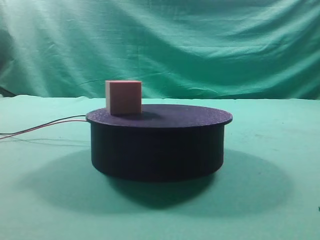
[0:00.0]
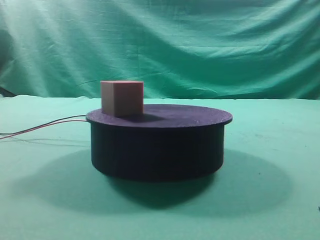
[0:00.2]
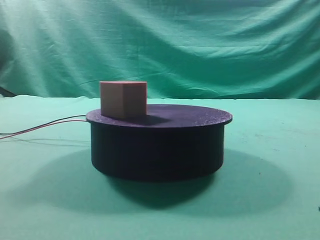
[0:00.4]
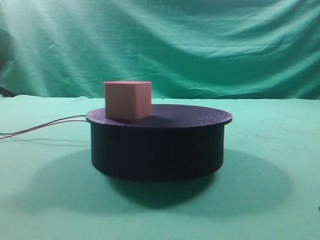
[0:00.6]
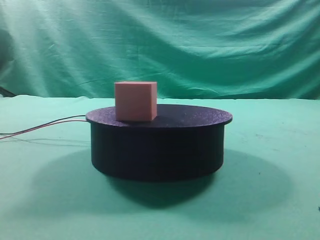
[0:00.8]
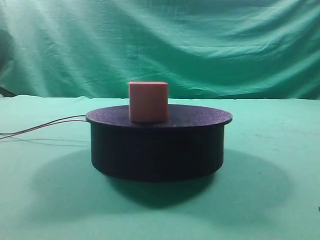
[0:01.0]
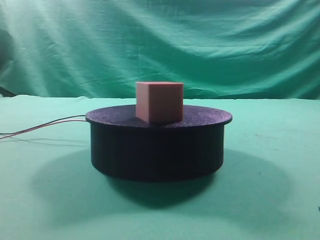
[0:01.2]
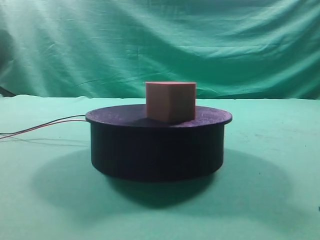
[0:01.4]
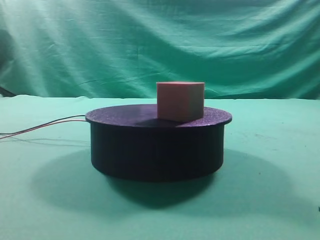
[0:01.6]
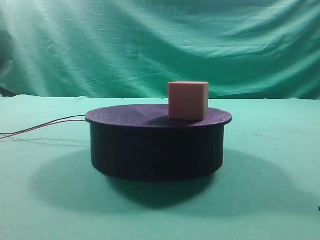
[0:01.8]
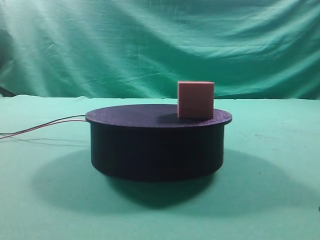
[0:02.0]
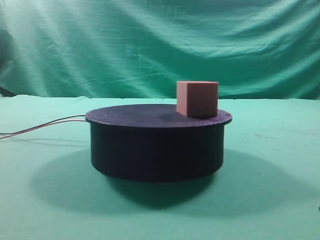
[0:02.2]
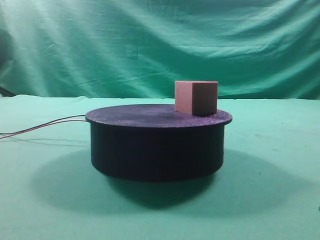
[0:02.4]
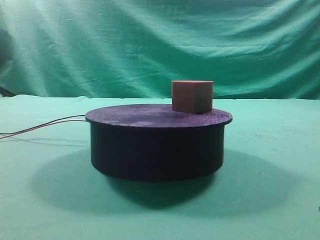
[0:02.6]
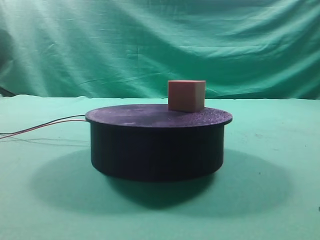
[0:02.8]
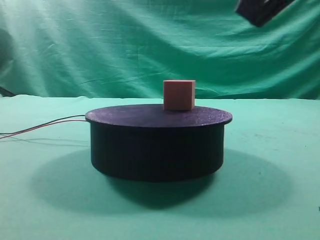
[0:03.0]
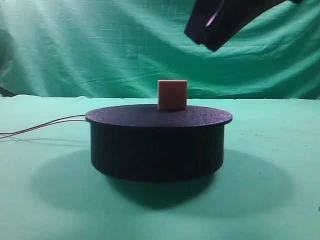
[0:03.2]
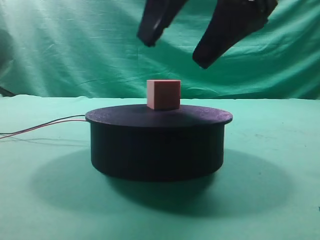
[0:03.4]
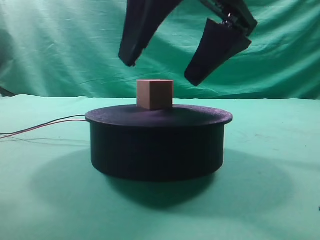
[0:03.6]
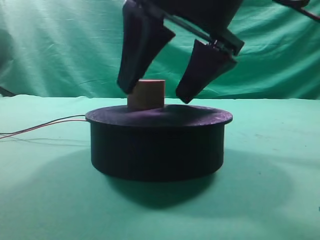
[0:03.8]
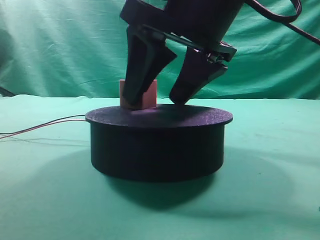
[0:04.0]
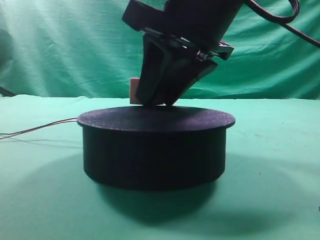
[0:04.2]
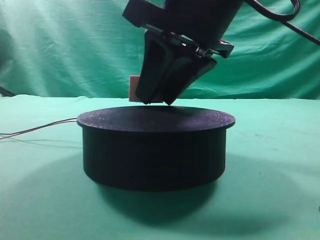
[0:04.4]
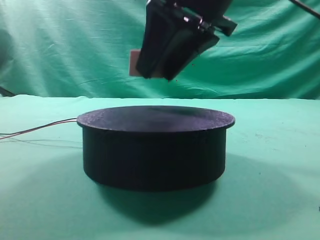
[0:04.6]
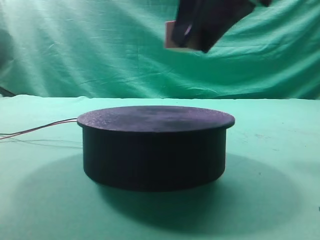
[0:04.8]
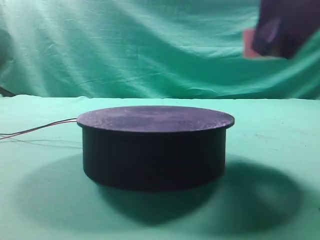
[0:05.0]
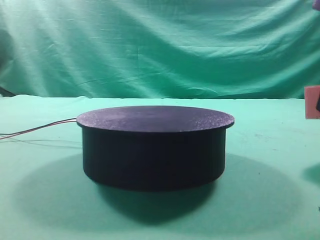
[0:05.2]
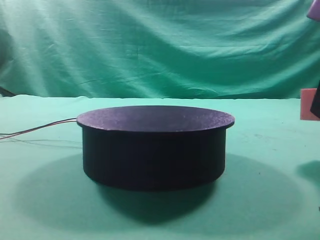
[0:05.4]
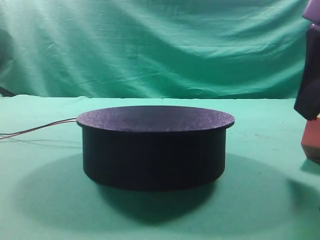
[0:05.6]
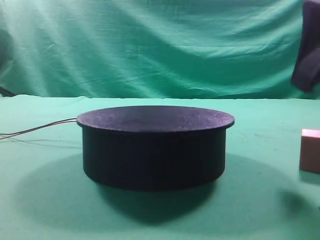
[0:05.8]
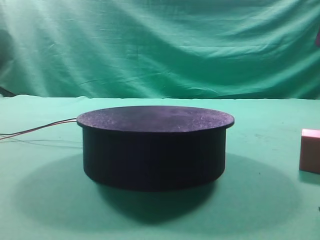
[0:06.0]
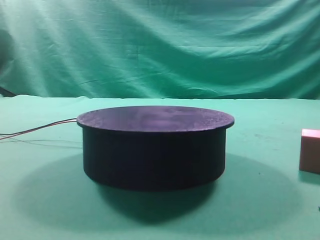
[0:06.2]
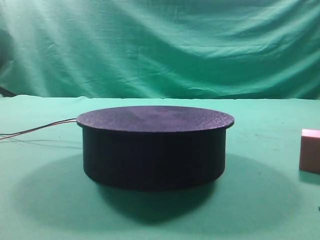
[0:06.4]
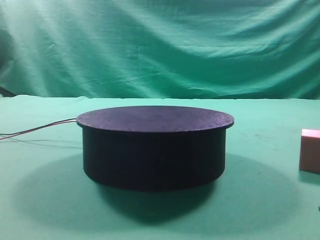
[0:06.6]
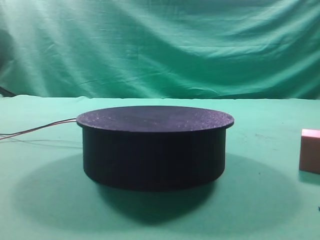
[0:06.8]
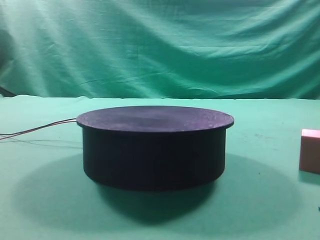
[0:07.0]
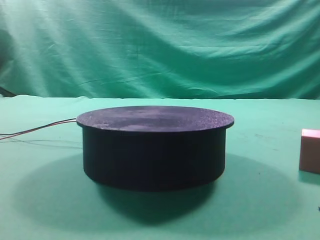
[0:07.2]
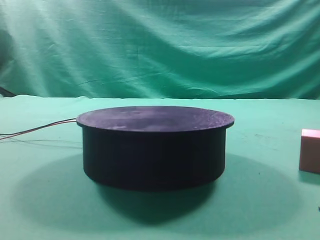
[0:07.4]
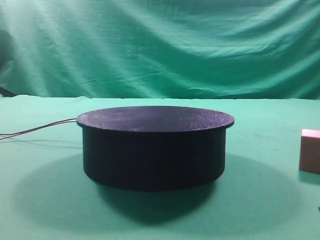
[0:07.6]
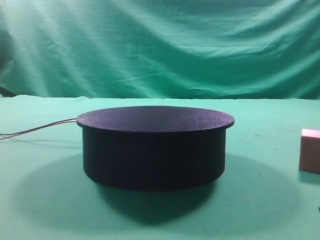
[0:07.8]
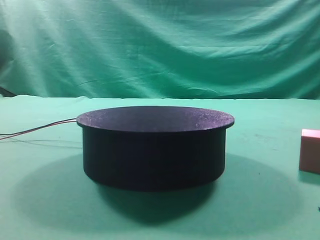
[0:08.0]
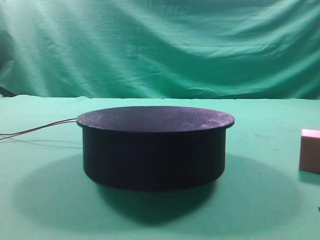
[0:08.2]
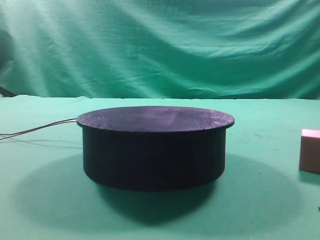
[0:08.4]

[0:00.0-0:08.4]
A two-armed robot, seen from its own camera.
Task of the whole recording: grasp the rotating cube-shaped block on the turntable and place it on the table.
Step, 0:00.0 to 0:04.4: Grasp the rotating cube-shaped block on the turntable.
Step, 0:04.6 to 0:05.6: Place the cube on the desk.

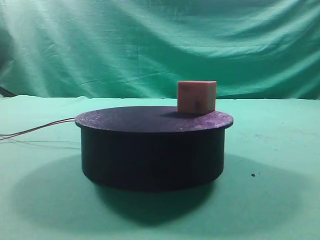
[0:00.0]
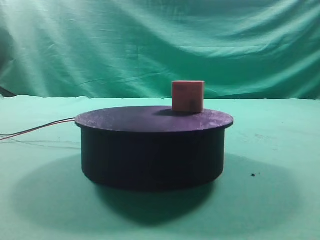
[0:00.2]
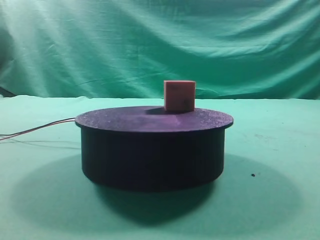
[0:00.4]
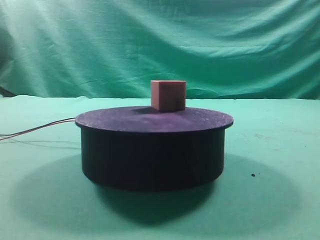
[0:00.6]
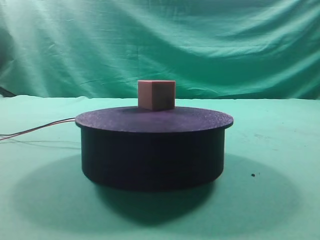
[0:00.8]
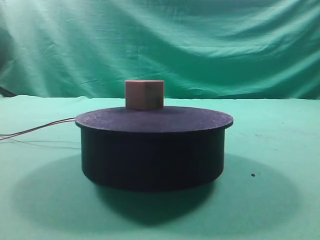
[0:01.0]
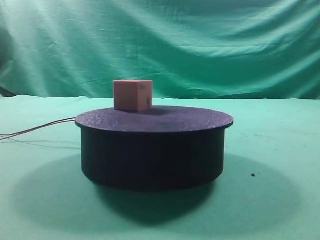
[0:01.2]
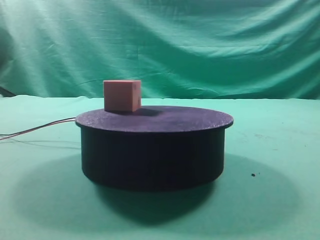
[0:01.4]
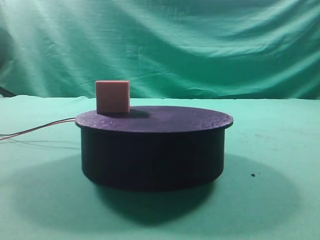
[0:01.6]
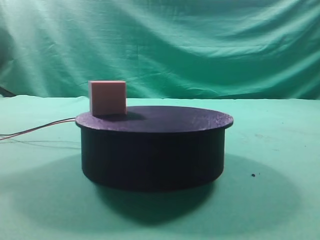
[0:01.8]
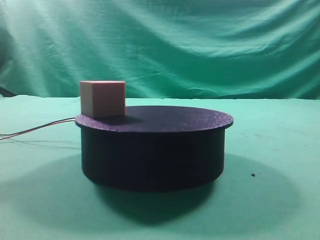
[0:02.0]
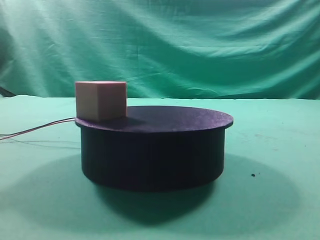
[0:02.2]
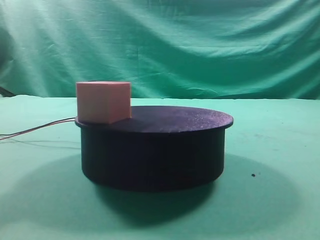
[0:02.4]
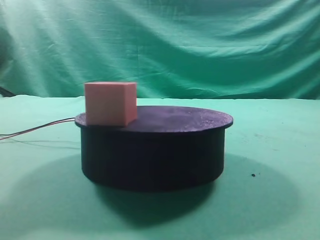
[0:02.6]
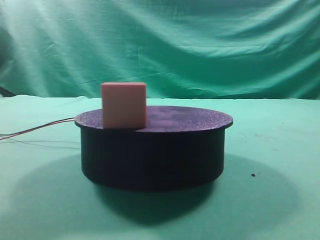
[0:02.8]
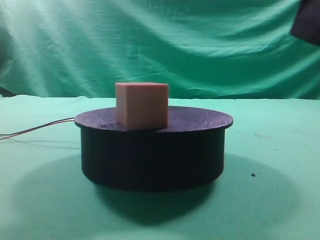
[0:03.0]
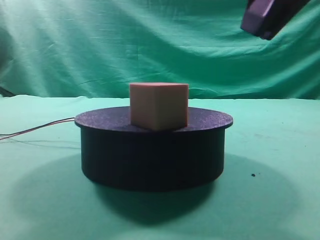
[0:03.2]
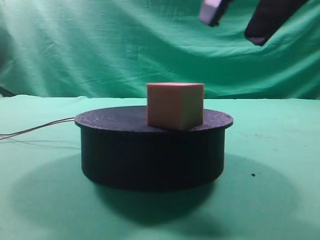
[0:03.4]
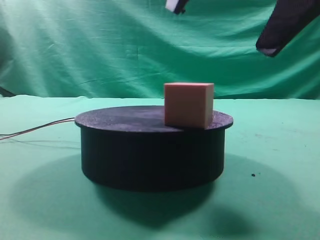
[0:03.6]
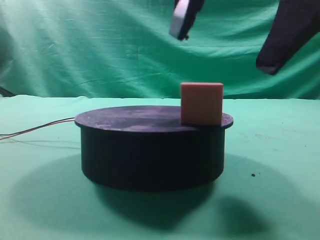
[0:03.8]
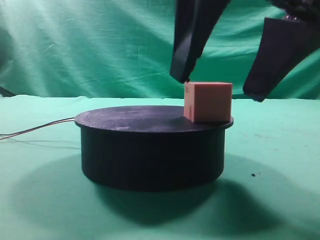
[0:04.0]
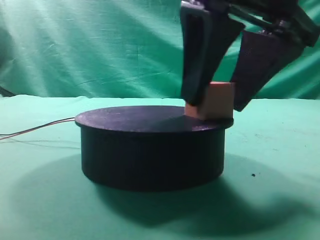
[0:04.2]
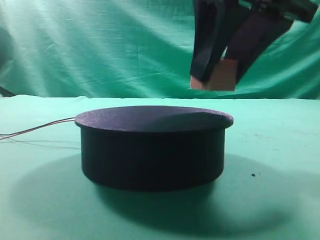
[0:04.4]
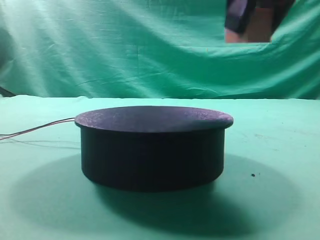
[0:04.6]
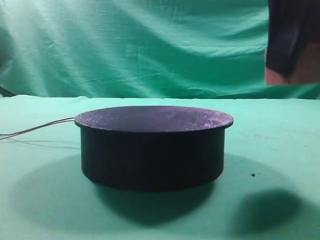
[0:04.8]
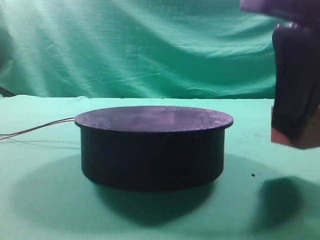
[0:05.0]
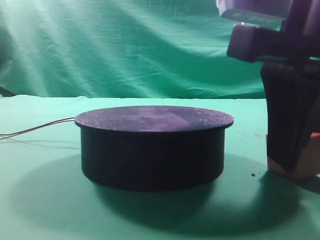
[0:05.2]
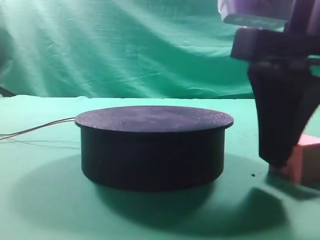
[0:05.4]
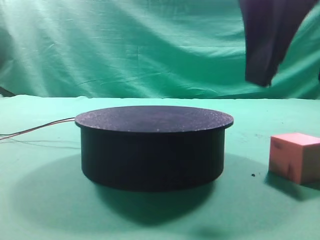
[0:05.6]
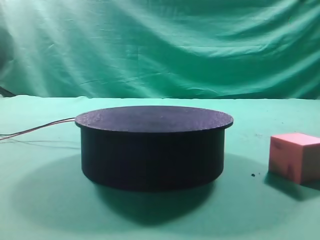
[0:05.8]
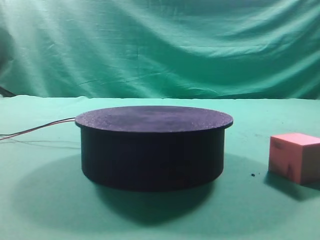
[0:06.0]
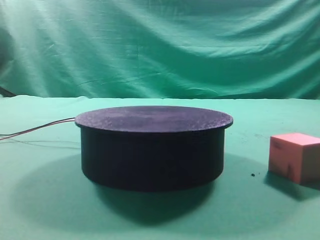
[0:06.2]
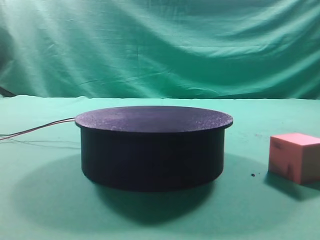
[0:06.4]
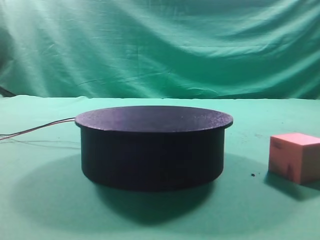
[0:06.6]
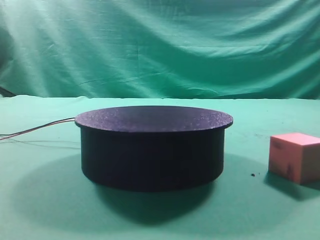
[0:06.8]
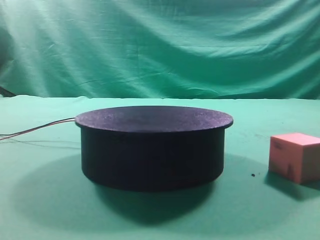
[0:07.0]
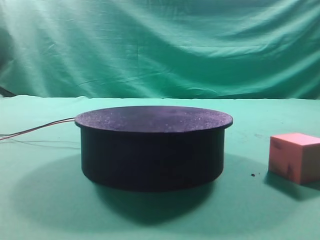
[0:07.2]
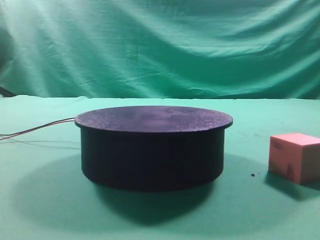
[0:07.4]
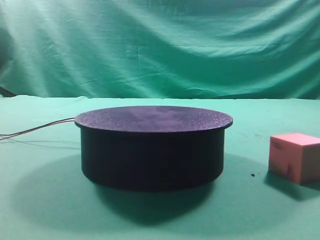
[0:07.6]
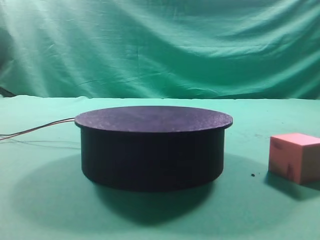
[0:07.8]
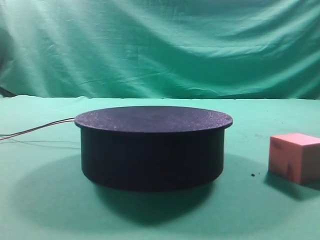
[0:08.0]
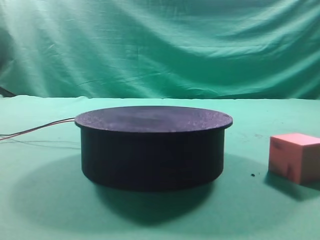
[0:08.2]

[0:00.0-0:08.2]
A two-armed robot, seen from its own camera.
Task of the whole recording: grasp the rotating cube-shaped block on the turntable and place it on the table.
Step, 0:00.0 to 0:04.4: Grasp the rotating cube-shaped block on the turntable.
Step, 0:04.6 to 0:05.4: Place the cube on the desk.

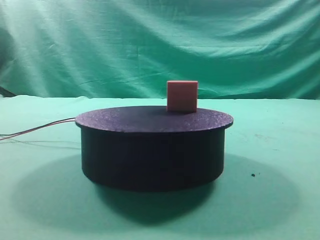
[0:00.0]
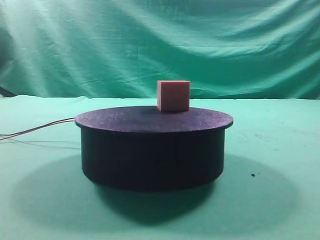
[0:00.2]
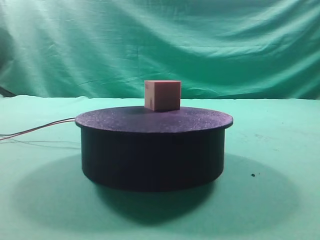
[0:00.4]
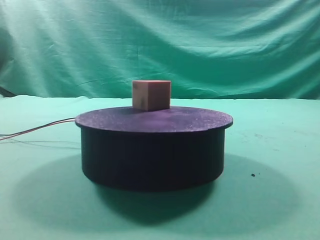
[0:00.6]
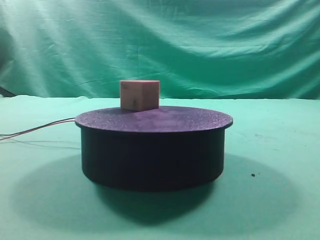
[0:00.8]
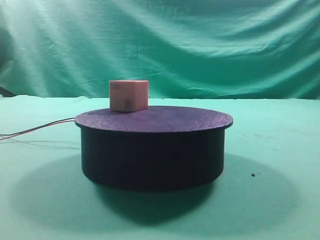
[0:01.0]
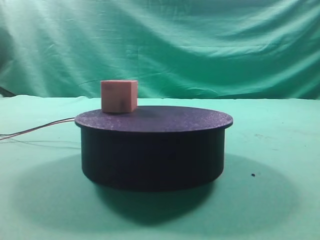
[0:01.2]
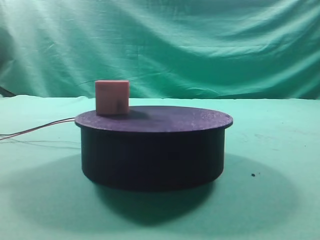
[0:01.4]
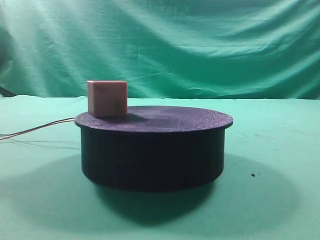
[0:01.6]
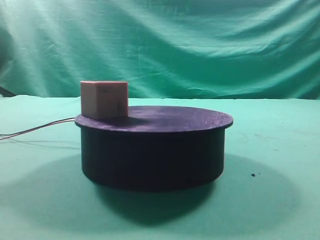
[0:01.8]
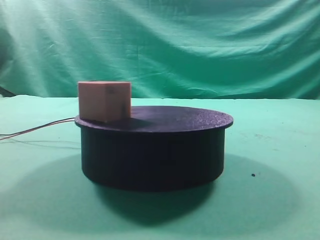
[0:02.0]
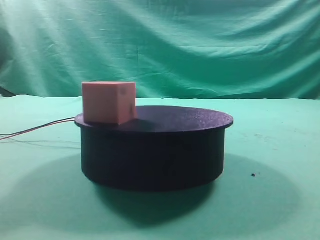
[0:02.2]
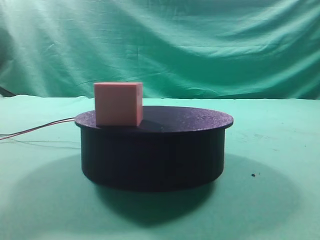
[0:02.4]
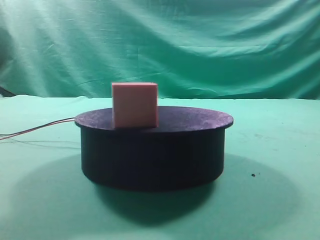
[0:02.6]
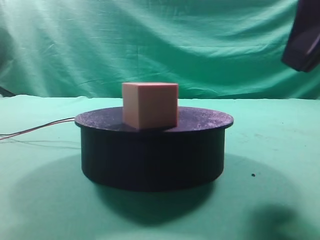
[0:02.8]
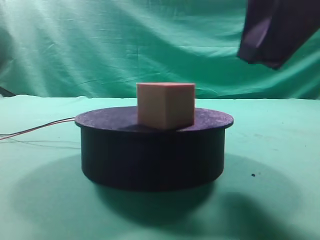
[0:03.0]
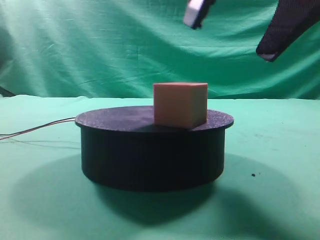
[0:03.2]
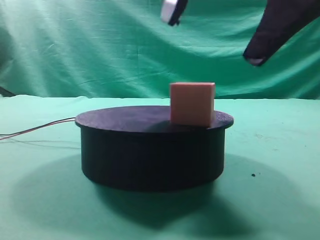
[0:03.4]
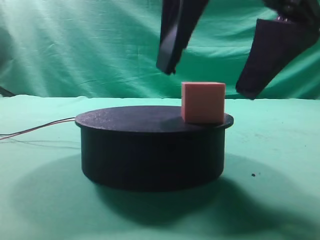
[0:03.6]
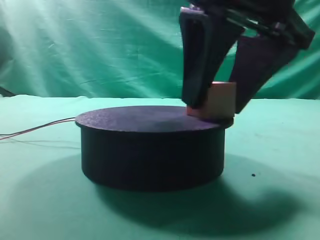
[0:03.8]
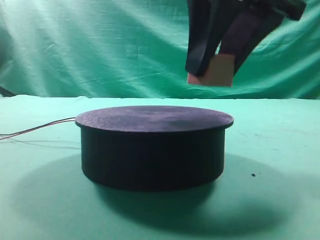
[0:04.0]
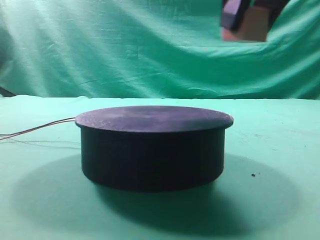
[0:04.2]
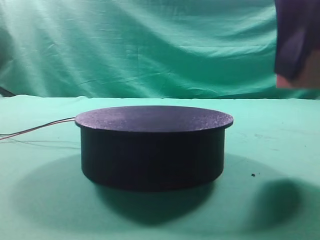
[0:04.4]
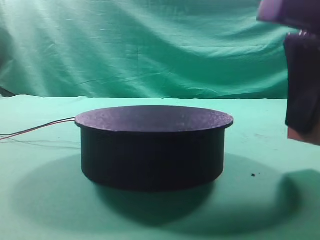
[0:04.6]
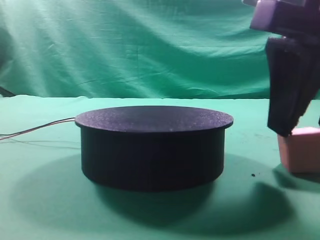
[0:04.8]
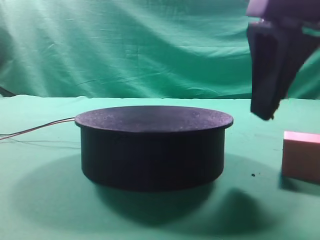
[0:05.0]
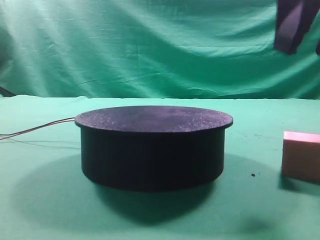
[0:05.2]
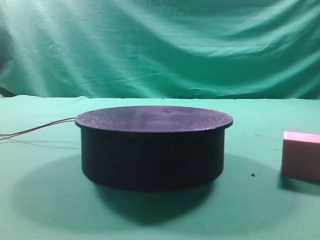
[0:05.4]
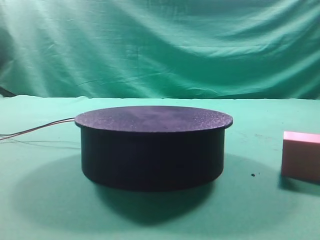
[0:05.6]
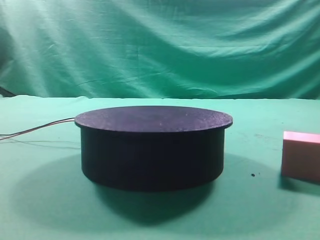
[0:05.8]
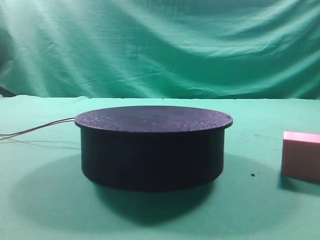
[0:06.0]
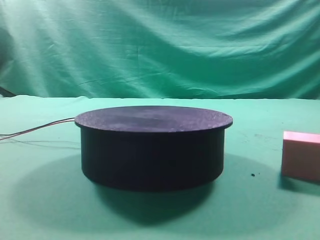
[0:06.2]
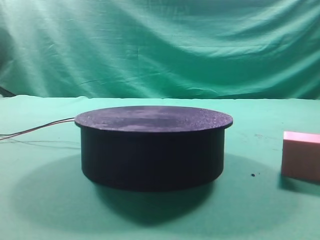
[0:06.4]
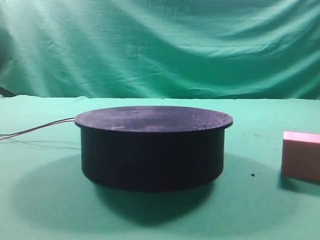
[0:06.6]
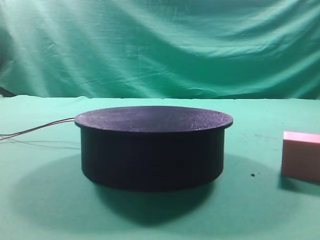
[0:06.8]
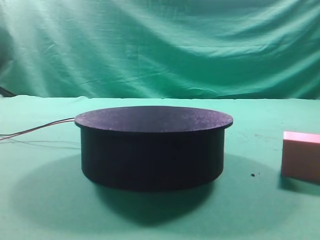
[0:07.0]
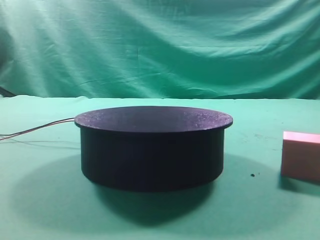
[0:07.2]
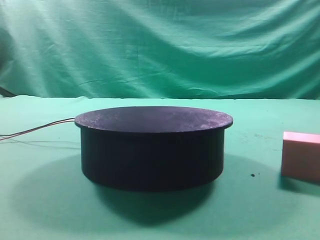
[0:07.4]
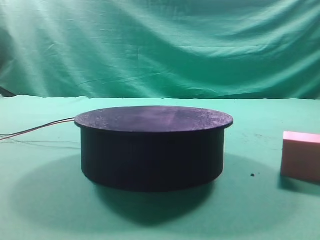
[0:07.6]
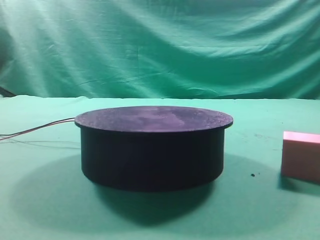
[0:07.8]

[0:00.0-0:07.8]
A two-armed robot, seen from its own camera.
Task of the whole recording: grasp the rotating cube-shaped block on the turntable and place it on the table.
Step, 0:00.0 to 0:04.0: Grasp the rotating cube-shaped block on the turntable.
Step, 0:04.2 to 0:05.0: Place the cube on the desk.
